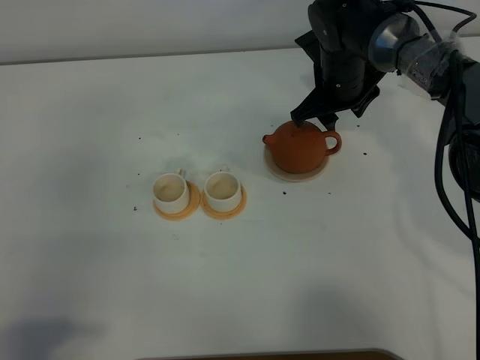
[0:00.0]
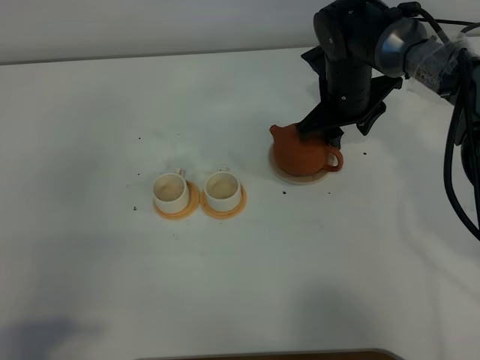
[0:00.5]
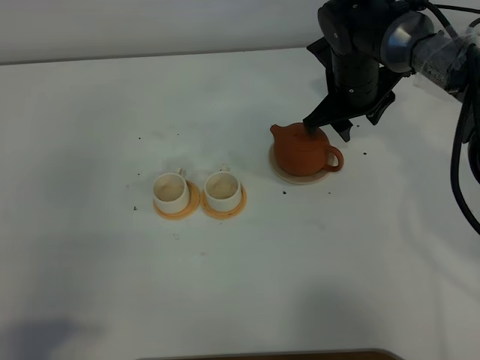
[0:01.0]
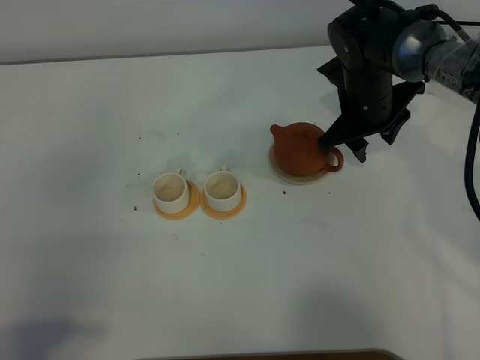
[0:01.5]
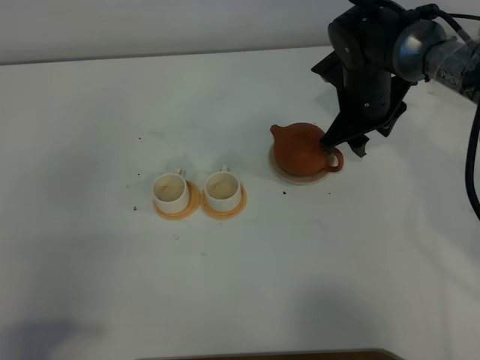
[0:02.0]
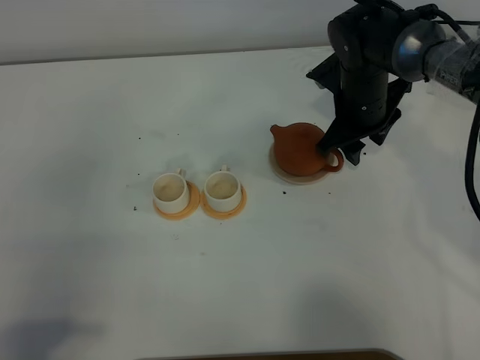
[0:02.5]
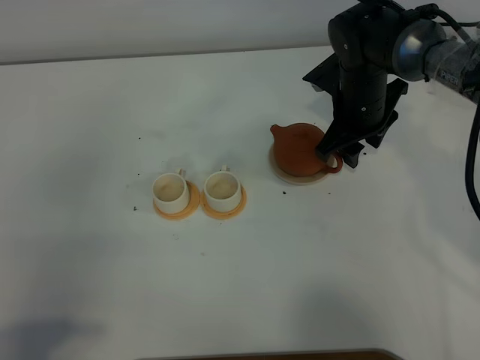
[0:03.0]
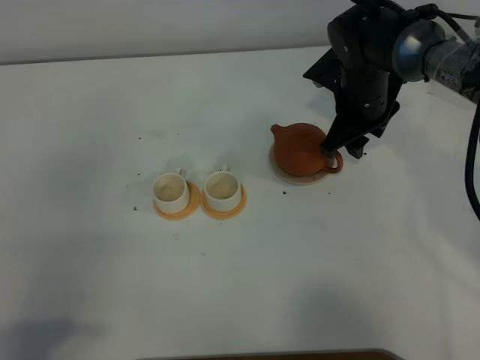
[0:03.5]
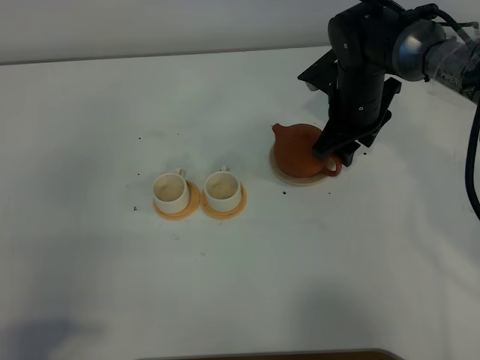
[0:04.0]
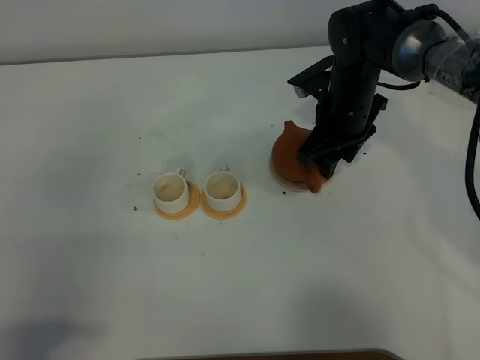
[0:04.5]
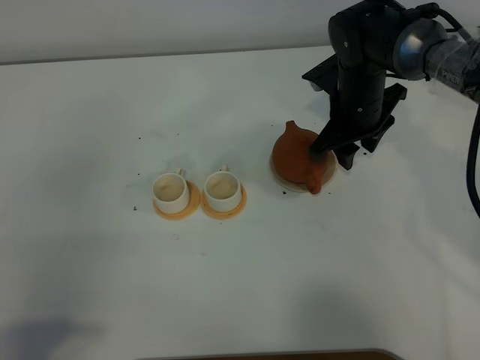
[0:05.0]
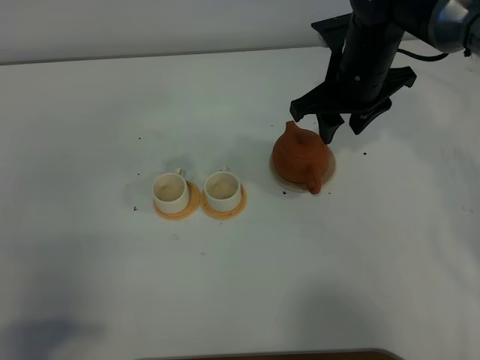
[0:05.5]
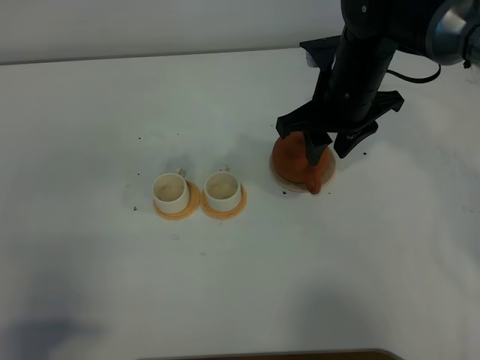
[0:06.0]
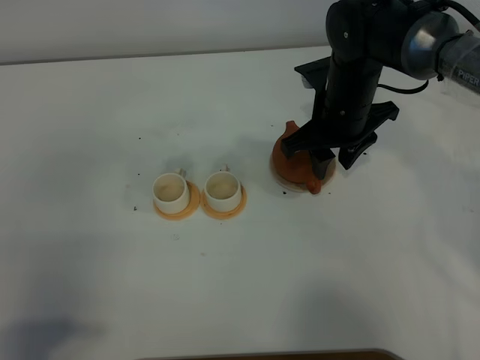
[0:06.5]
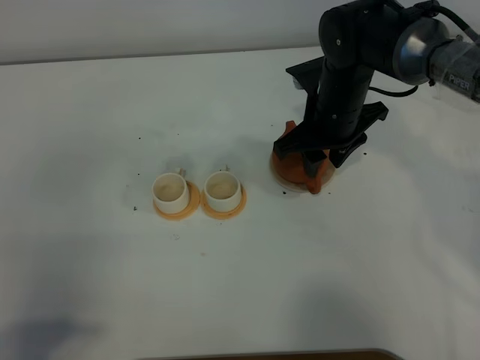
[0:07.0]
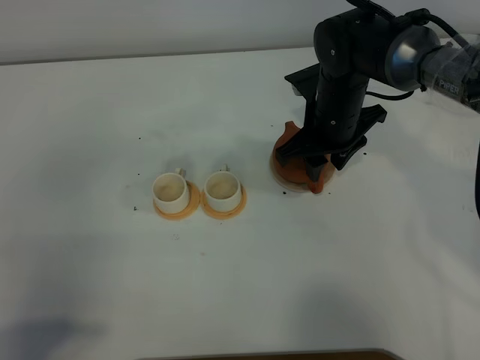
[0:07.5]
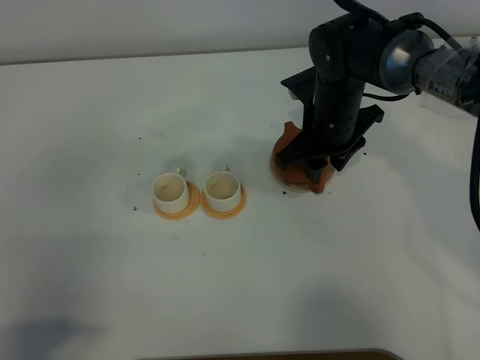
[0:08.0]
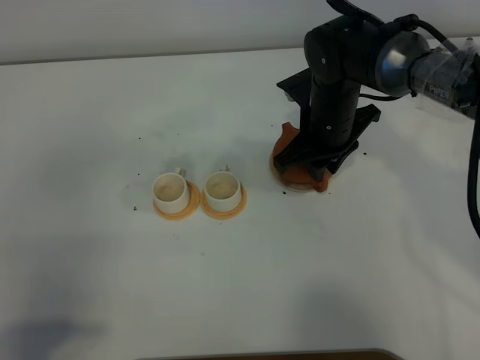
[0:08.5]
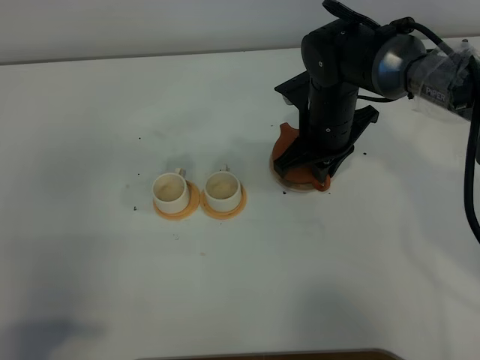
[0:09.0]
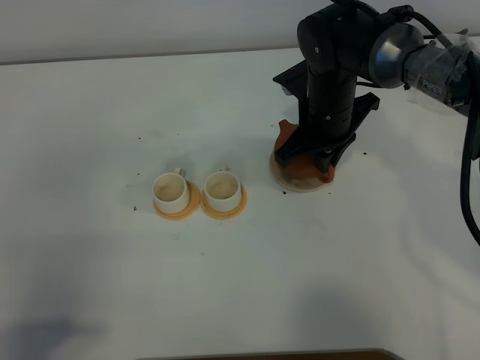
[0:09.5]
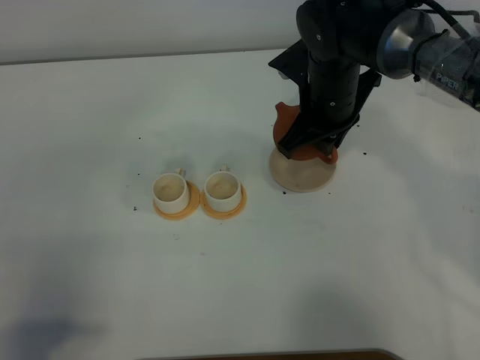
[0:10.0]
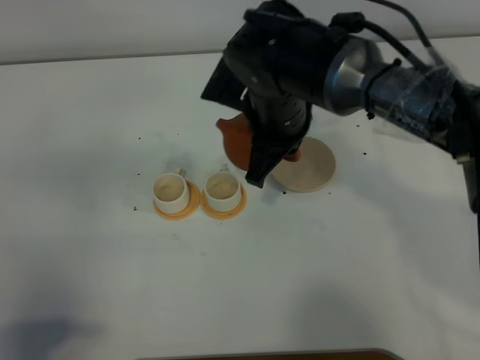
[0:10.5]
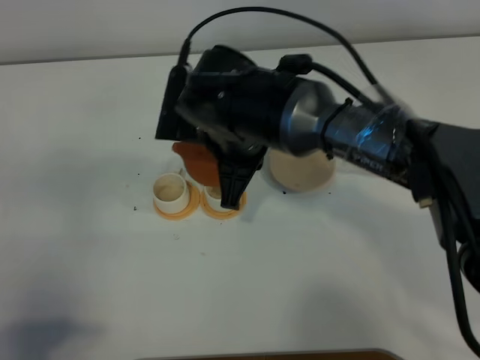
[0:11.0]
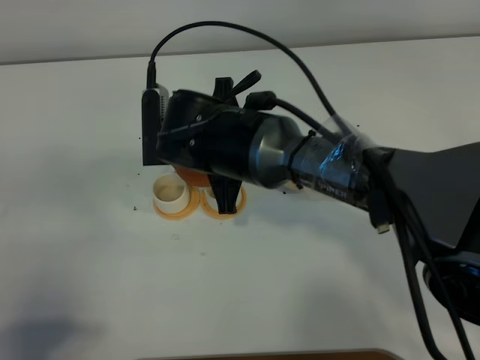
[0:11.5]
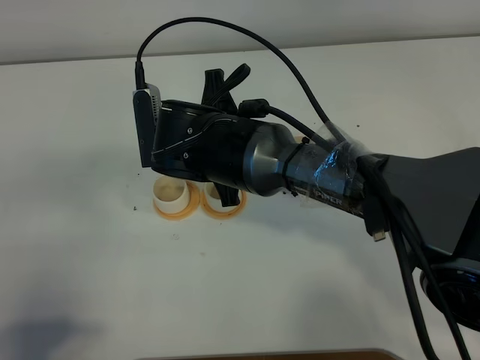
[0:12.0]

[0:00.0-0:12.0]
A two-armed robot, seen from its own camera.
Task of the whole recording: grasp the brown teapot and pour the tea into the two white teacups one by one, put the brown teapot back in its original place.
Step, 0:00.0 to 0:10.0: Pick up the teapot with the right gripper.
0:00.0 to 0:04.0: The grippers make only small movements.
0:04.0 to 0:06.0: The right gripper goes some 5 cm upward.
0:06.0 to 0:08.0: The right gripper shifts some 5 cm downward.
0:08.0 to 0:10.0: The right gripper travels upward by roughly 5 cm, and closes.
0:10.0 to 0:12.0: The right gripper shifts some 15 cm to the left and backward.

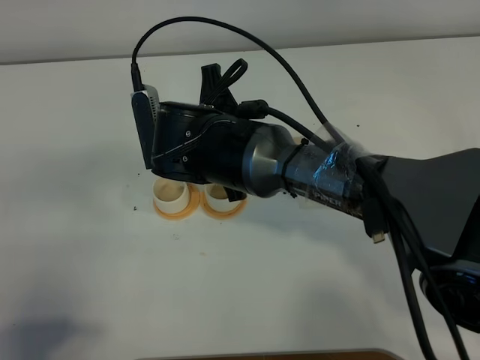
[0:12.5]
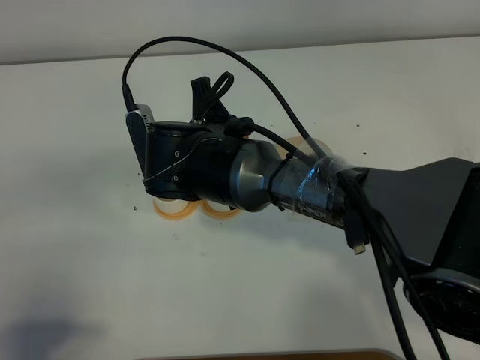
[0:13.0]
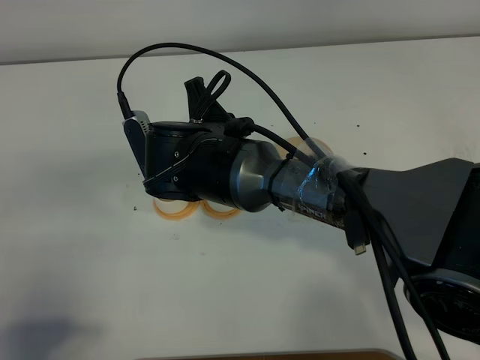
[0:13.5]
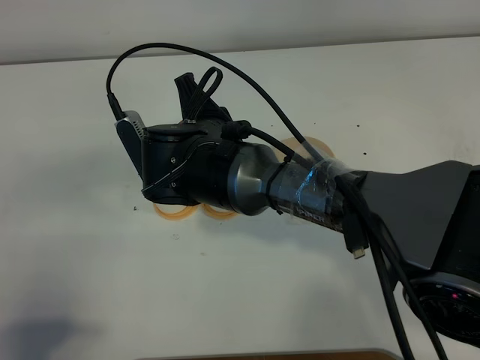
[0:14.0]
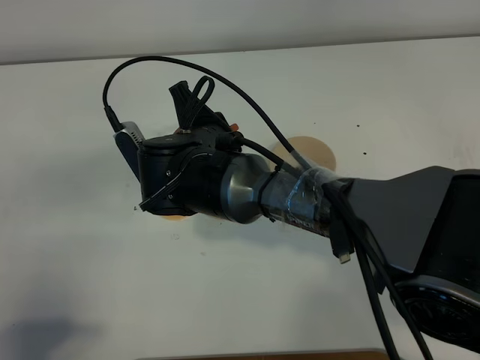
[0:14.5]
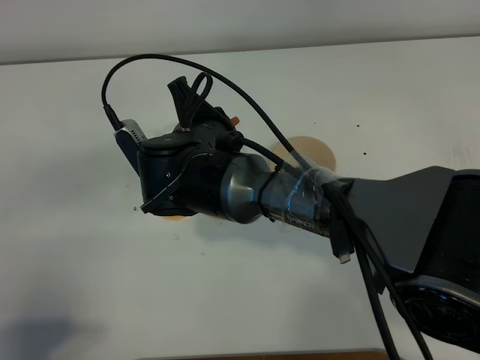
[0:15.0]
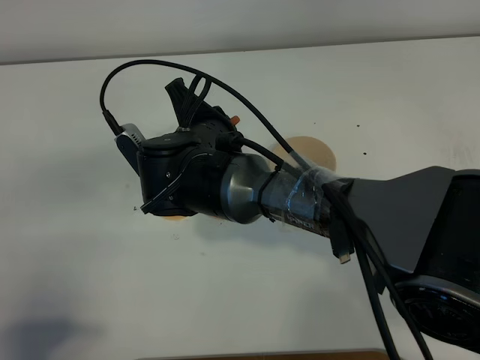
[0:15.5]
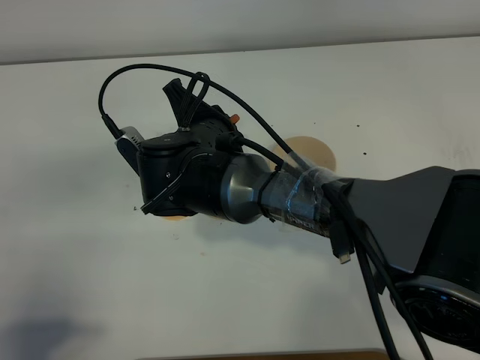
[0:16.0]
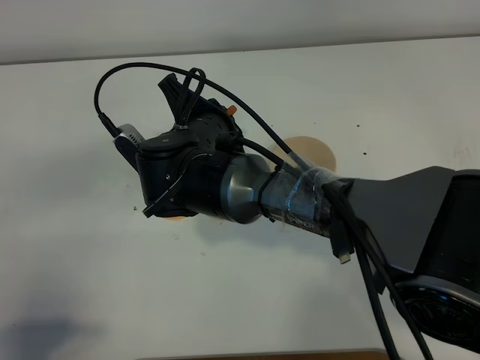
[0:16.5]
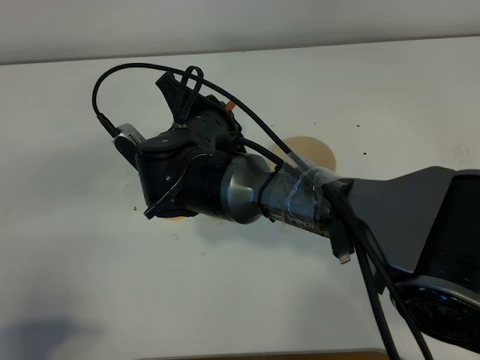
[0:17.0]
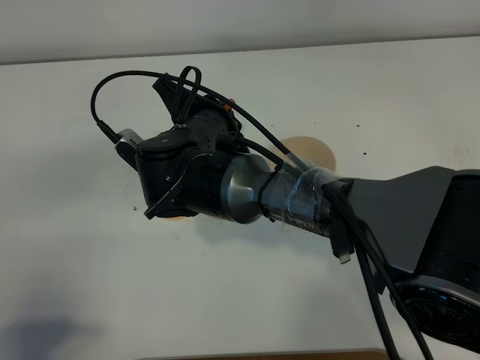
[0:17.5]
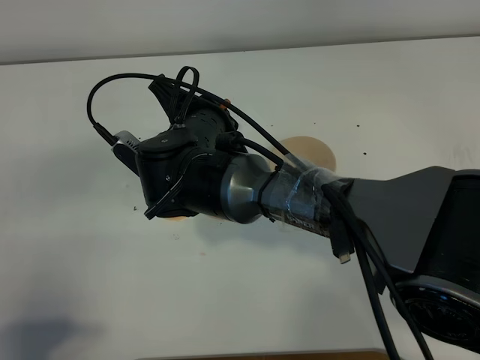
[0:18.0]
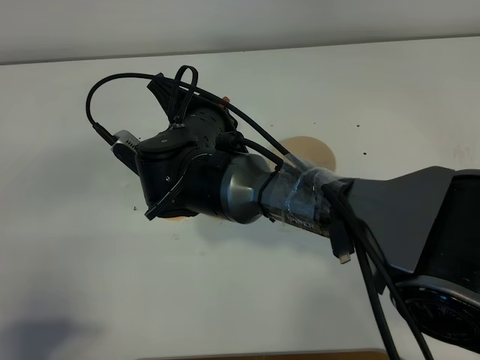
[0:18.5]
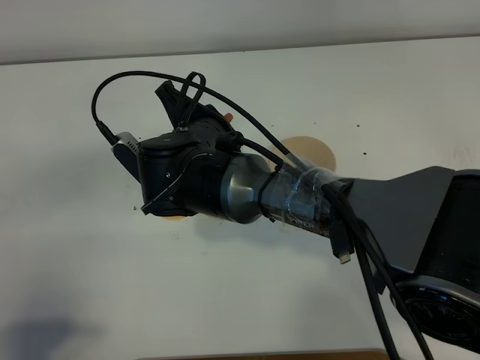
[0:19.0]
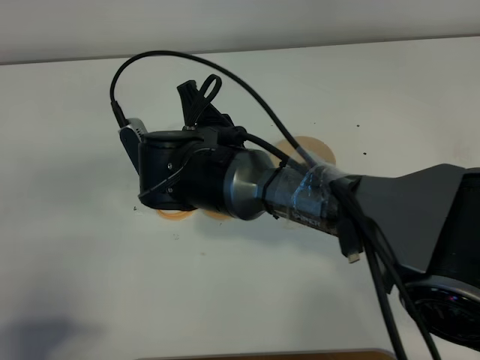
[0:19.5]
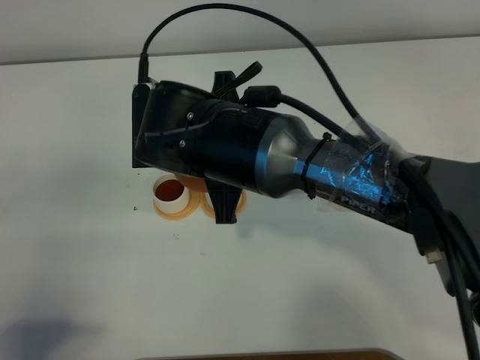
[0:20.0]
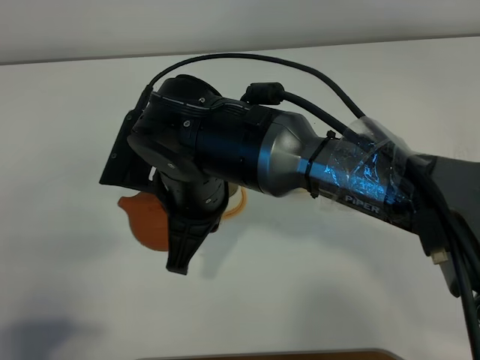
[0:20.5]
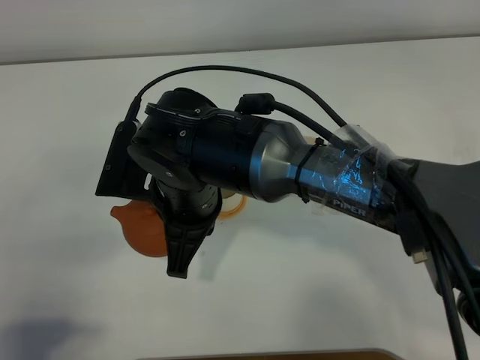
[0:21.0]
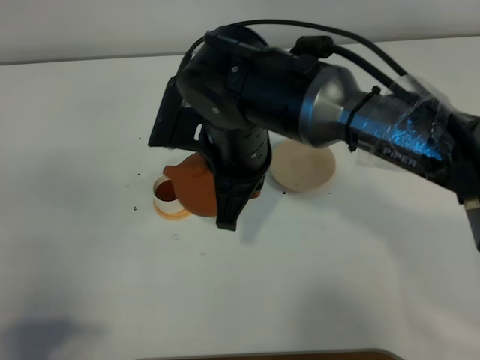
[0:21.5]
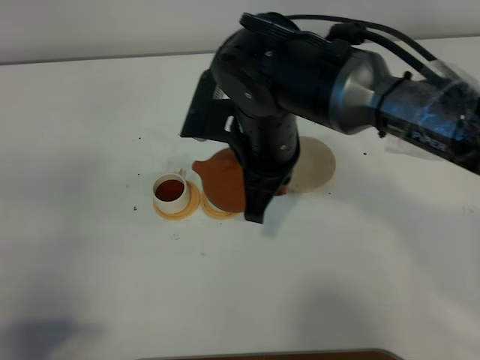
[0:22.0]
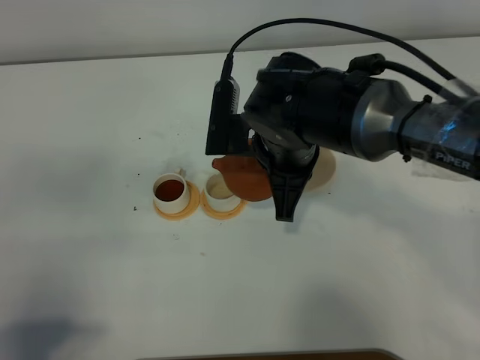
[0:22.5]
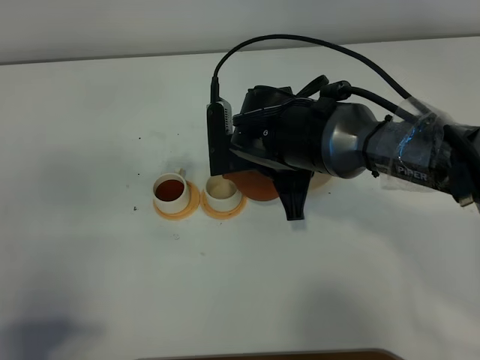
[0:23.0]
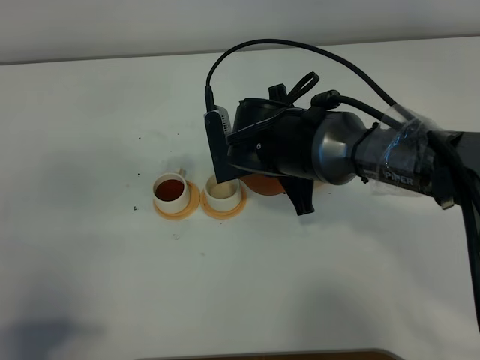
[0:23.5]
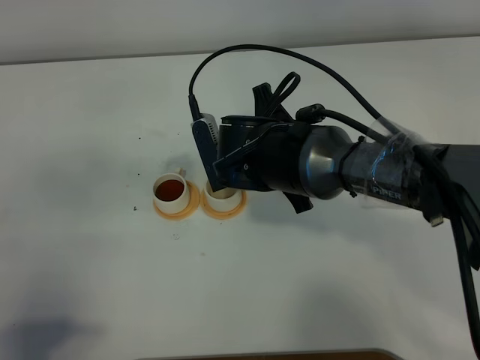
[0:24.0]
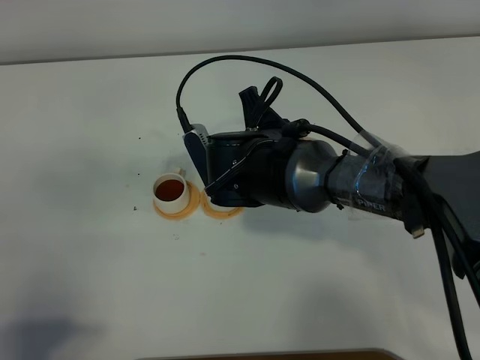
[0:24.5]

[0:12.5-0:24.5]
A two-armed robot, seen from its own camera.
Task of the whole recording: grasp the brown teapot and pour the tea into the two white teacups one by one, put the brown teapot back in its original place.
0:14.5 to 0:18.5: There are only small adjustments of the grippers.
0:18.5 to 0:20.5: The right gripper goes approximately 5 cm backward.
0:20.5 to 0:22.5: The right gripper is displaced forward and to the right by some 10 cm.

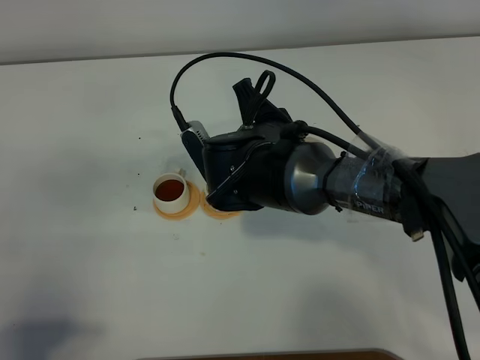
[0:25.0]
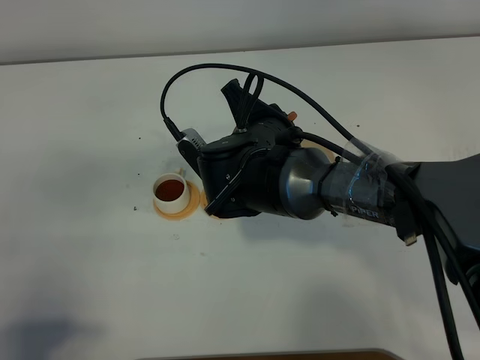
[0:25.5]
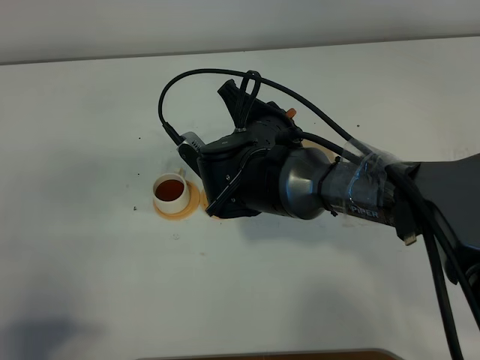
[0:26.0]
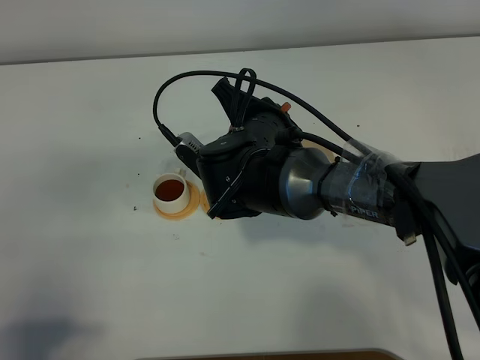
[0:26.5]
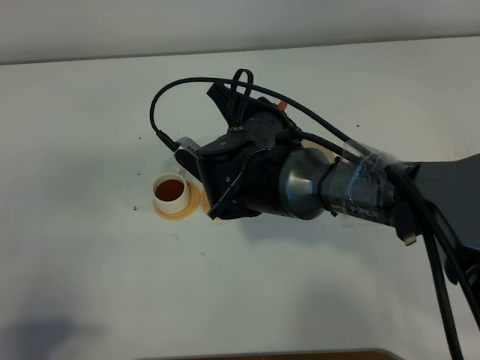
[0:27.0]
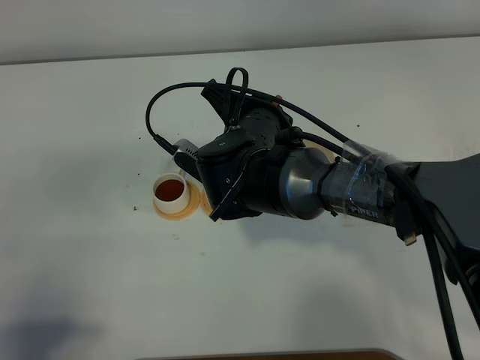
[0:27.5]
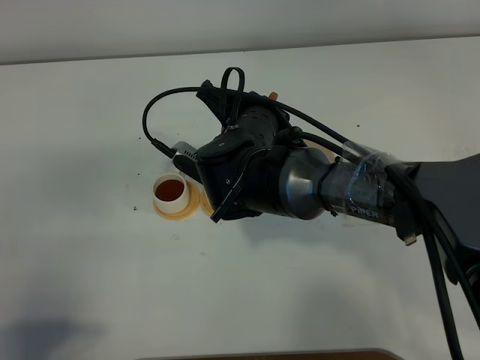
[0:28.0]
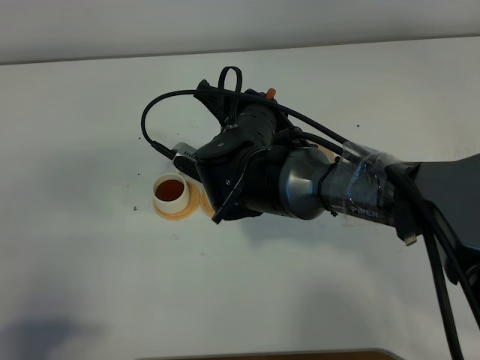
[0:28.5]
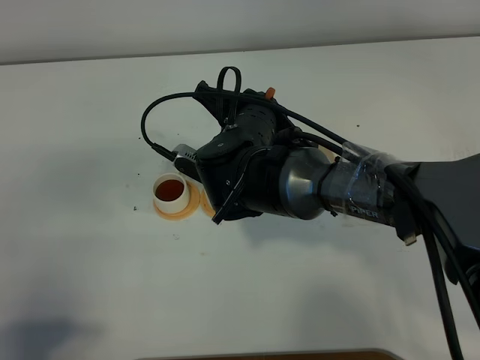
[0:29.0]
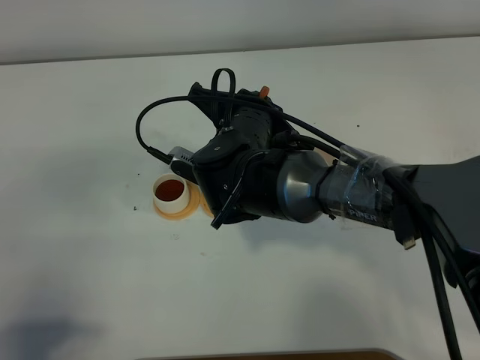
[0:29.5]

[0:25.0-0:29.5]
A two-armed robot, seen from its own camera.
Task of the whole recording: grasp the brown teapot and pour the tea into the two white teacups one by one, put the brown teapot back in its original place.
0:25.0 to 0:27.0: The grippers stay close to where they were, moving slightly.
0:27.0 to 0:29.5: The grippers move only a little.
